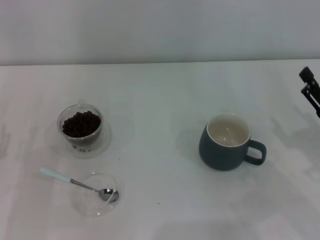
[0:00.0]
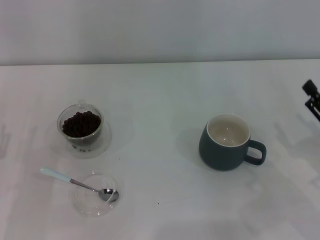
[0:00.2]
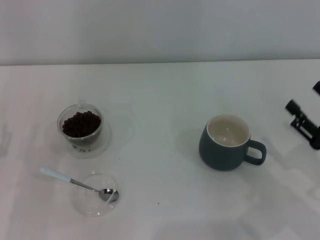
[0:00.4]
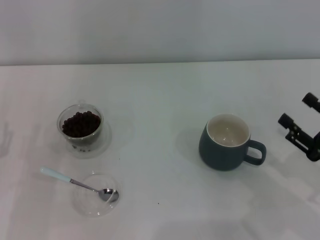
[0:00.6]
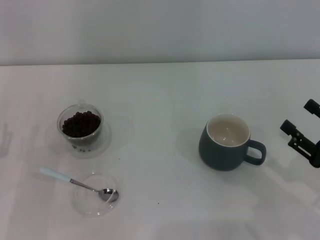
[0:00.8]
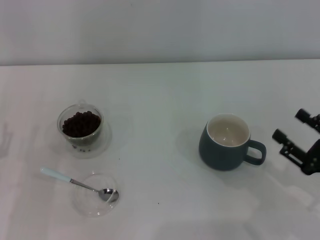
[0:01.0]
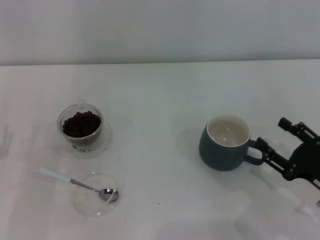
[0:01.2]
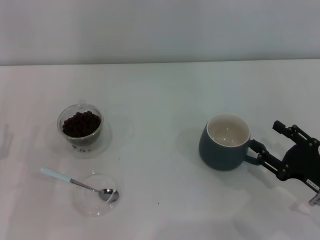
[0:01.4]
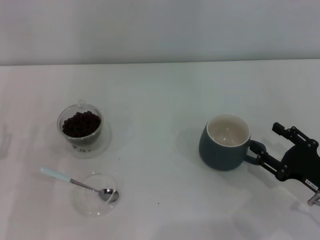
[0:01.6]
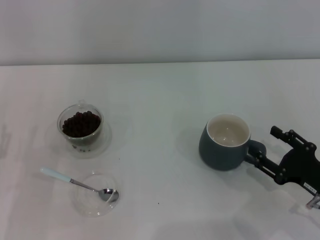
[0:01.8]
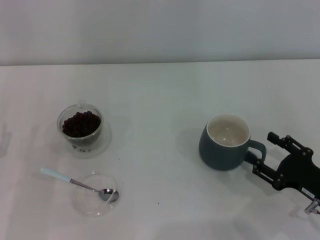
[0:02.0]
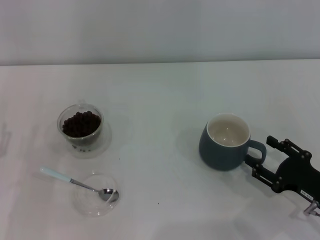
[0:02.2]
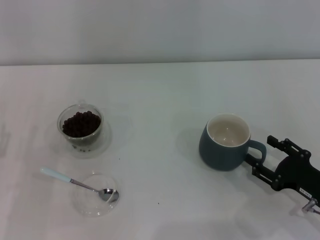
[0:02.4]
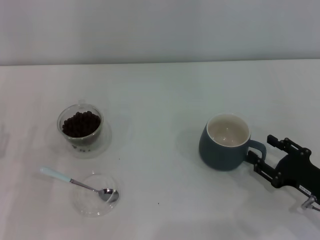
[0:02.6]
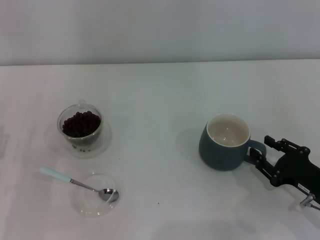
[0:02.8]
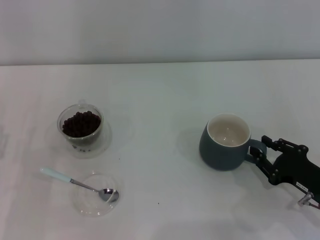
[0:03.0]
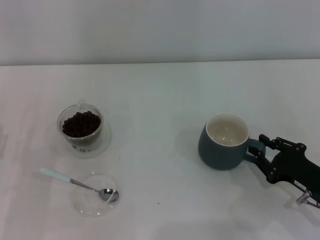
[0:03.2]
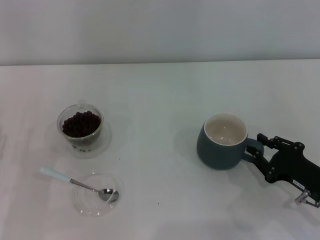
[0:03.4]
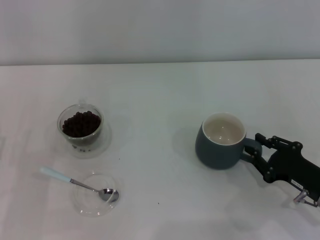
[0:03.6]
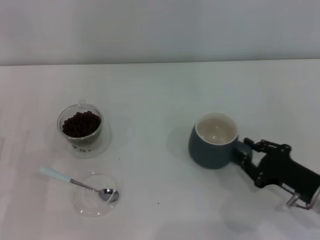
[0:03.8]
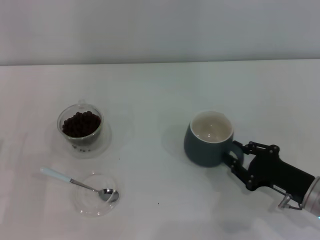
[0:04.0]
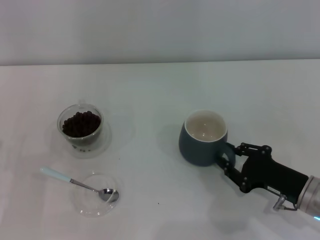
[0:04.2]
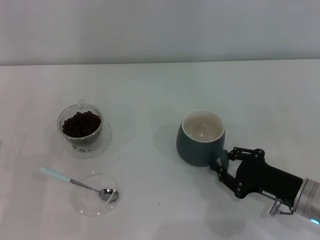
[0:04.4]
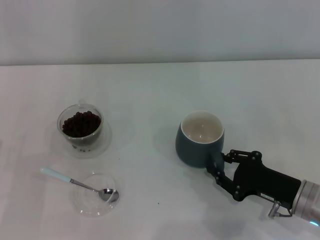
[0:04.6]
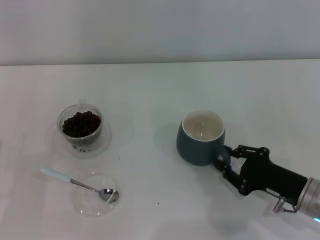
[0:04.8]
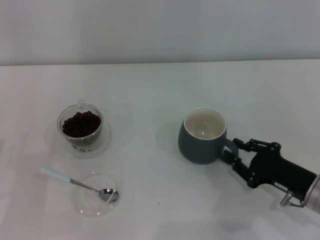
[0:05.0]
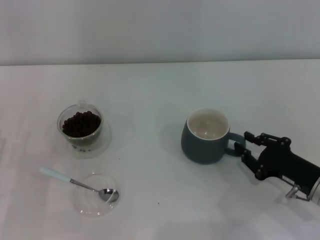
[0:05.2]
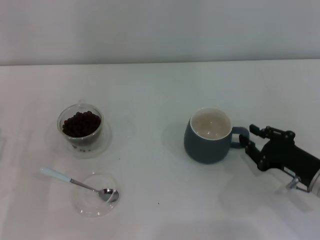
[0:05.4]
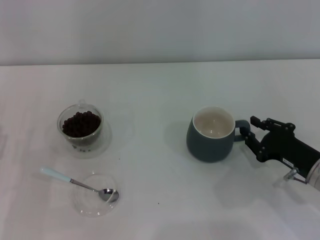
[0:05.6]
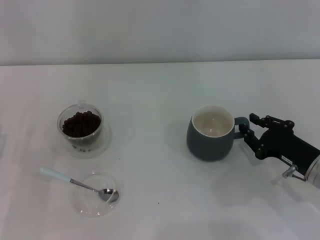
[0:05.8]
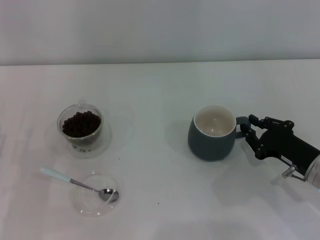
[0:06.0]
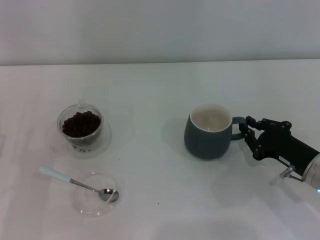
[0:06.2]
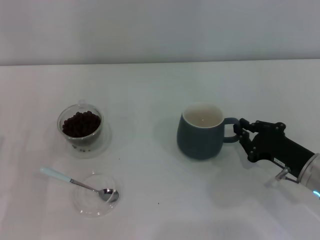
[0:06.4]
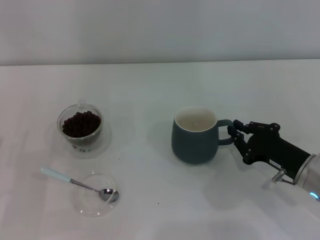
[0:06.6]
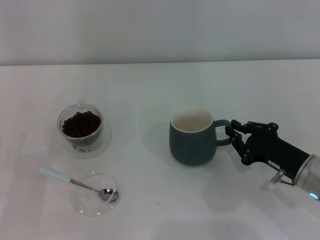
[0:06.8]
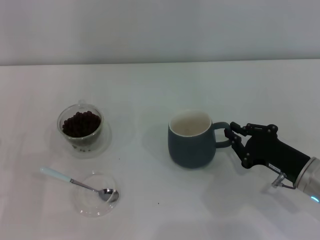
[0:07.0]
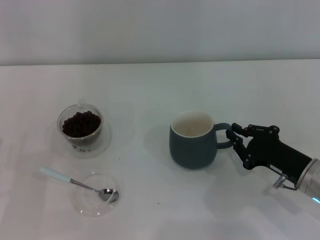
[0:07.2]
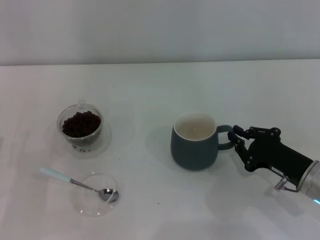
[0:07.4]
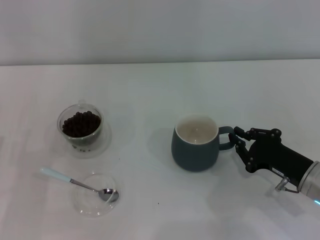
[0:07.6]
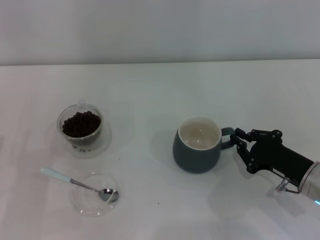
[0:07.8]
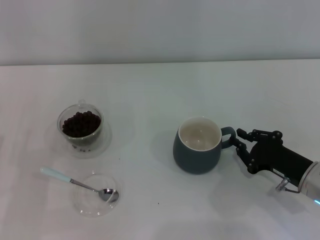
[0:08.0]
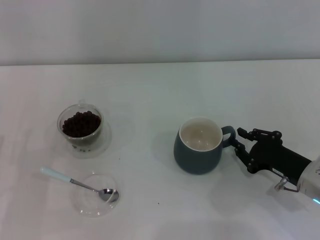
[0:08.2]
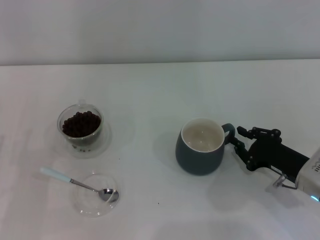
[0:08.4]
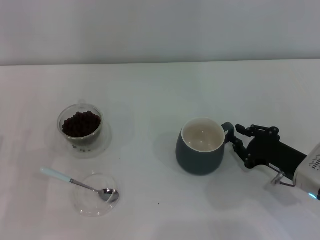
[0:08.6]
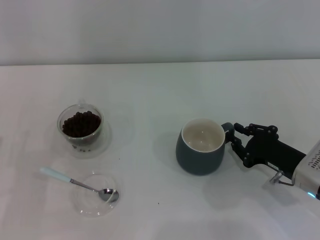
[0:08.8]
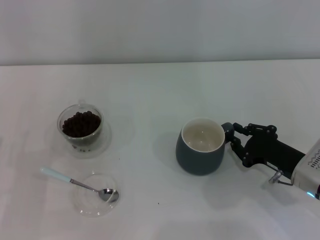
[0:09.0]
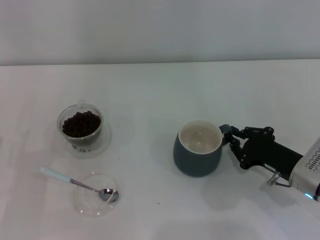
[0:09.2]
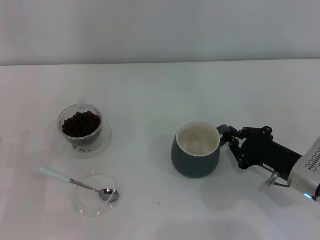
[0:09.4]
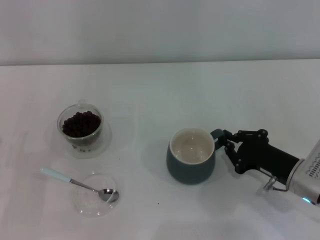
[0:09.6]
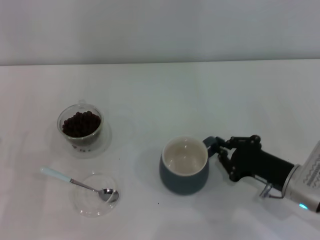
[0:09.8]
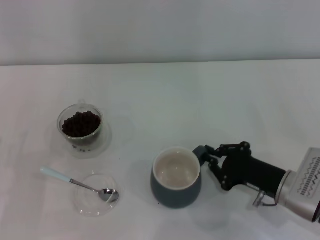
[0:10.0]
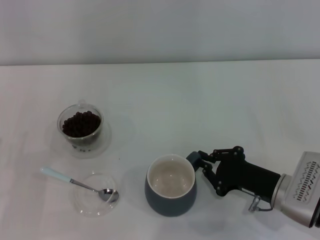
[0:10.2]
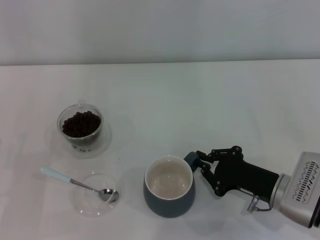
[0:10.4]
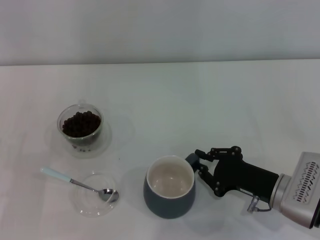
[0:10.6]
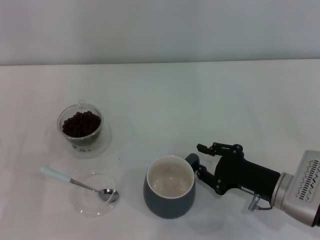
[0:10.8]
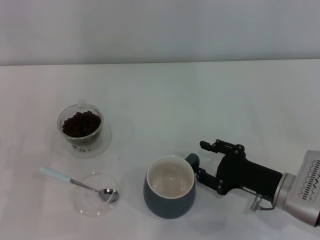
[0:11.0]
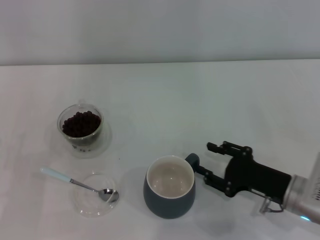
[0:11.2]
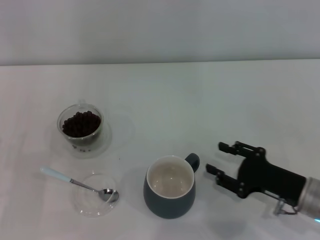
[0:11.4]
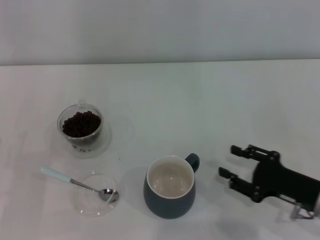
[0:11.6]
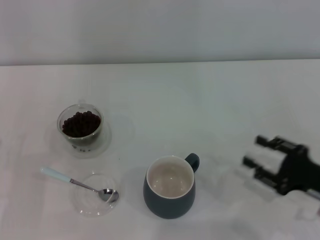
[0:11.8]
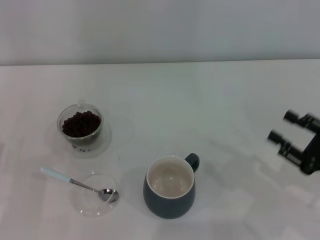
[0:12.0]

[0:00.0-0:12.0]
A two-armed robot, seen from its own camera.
Task of the whole recording: Use a blue spoon to take out the coffee beans from the glass and pour them into the gray cup.
Step, 0:00.0 to 0:11.4: Move the cup to the center of view with the left gripper.
0:00.0 to 0:01.6: The right gripper shifts by approximately 5 cm.
0:01.6 to 0:06.0: There are only small adjustments of the grippers.
0:06.0 to 0:09.0: The grippers move only a little.
0:09.0 to 0:10.4: The grippers stay close to where they were, moving slightly.
0:10.4 to 0:12.0: The right gripper shifts roughly 10 cm to the right, and opens up.

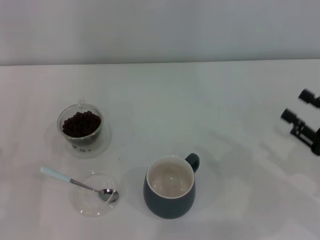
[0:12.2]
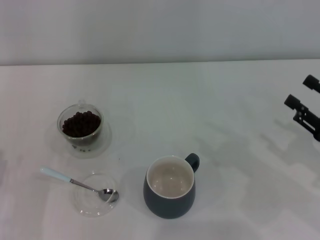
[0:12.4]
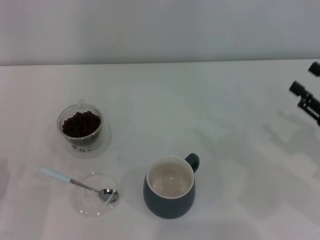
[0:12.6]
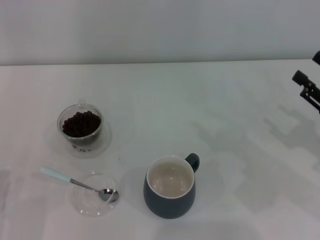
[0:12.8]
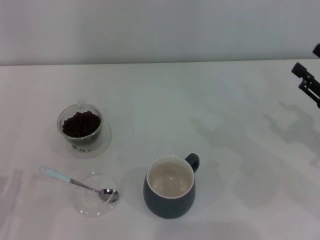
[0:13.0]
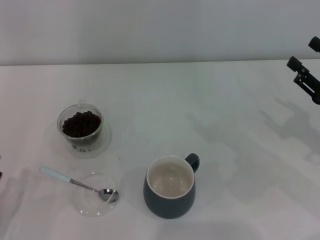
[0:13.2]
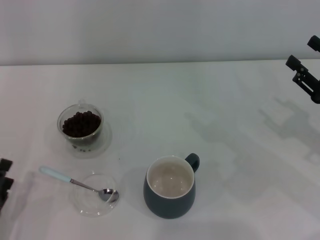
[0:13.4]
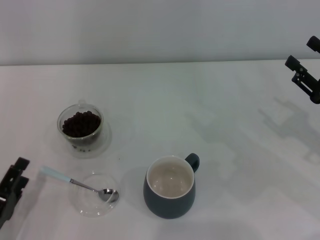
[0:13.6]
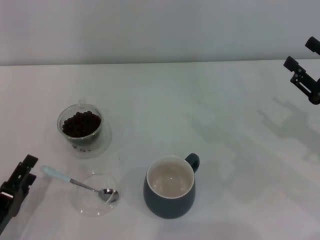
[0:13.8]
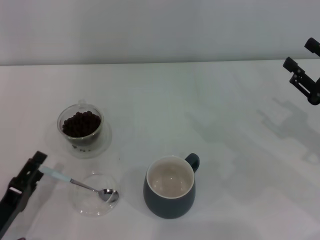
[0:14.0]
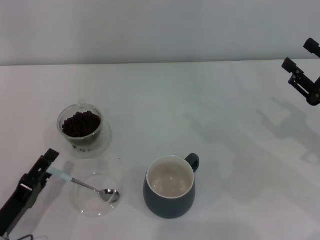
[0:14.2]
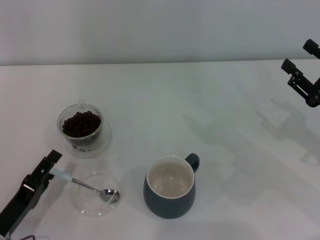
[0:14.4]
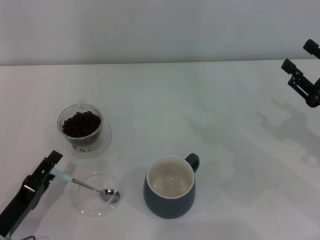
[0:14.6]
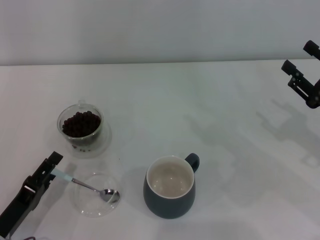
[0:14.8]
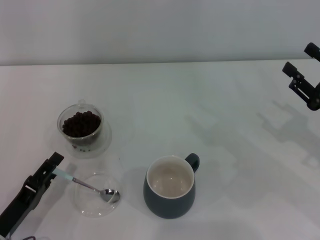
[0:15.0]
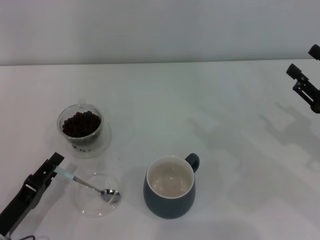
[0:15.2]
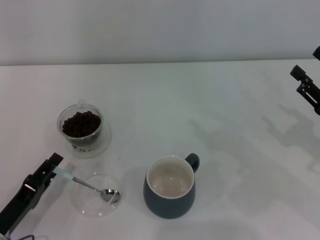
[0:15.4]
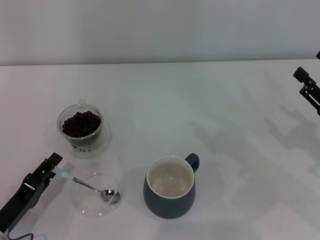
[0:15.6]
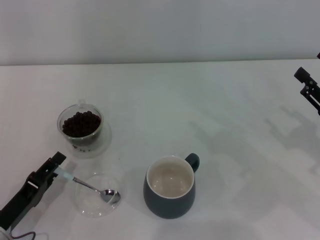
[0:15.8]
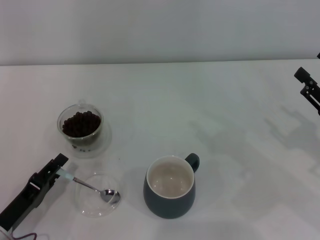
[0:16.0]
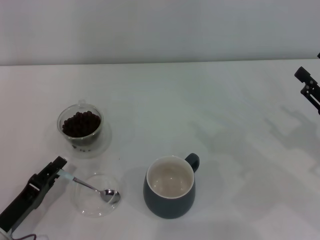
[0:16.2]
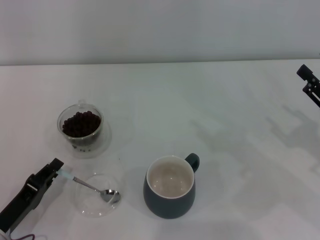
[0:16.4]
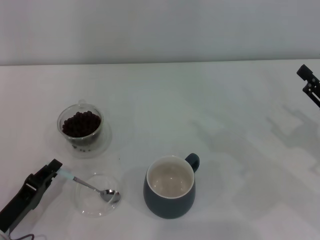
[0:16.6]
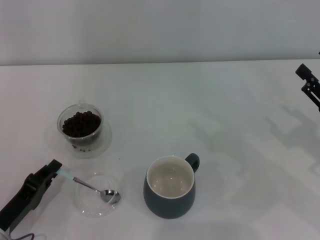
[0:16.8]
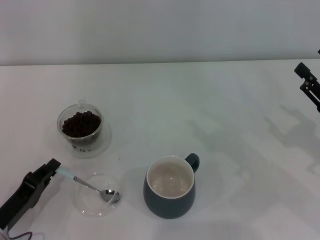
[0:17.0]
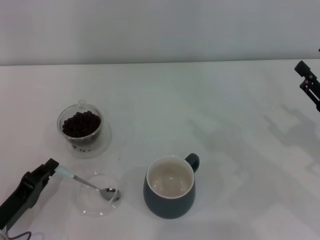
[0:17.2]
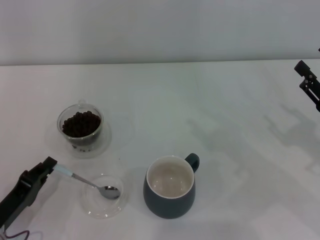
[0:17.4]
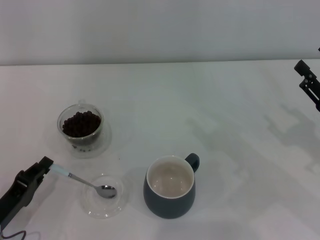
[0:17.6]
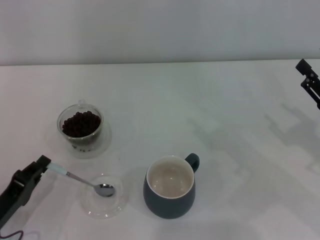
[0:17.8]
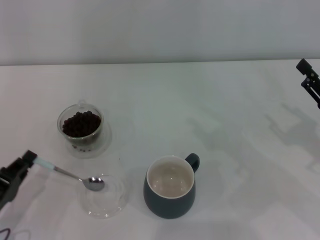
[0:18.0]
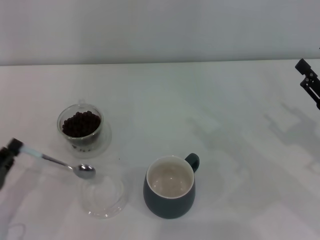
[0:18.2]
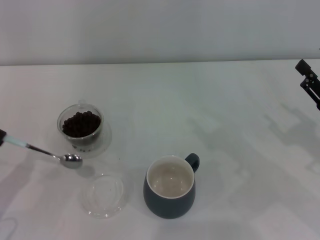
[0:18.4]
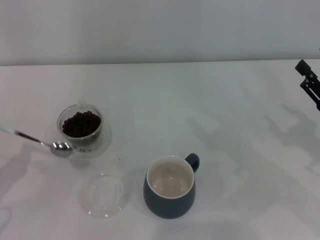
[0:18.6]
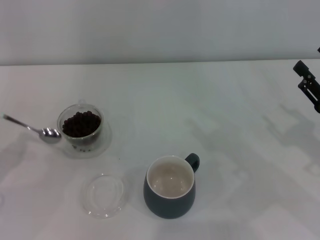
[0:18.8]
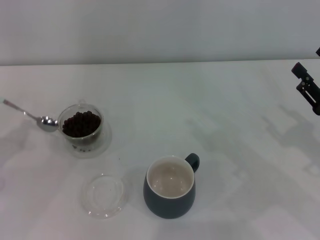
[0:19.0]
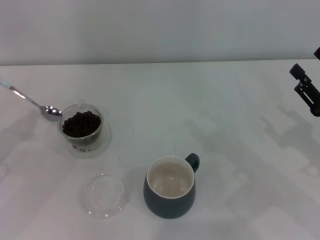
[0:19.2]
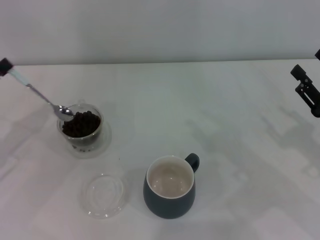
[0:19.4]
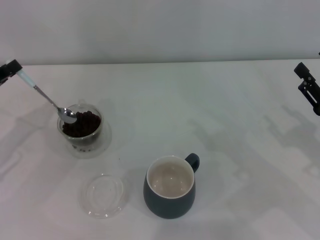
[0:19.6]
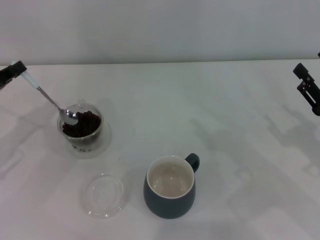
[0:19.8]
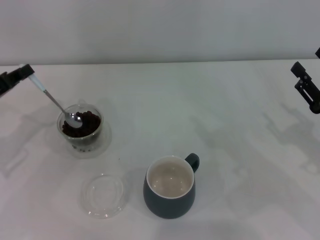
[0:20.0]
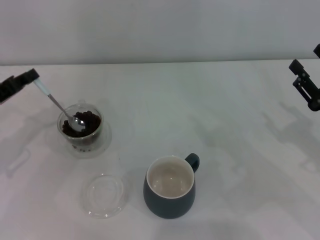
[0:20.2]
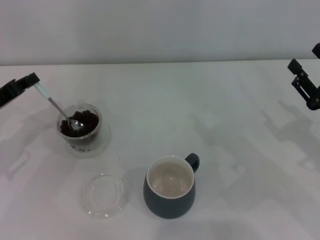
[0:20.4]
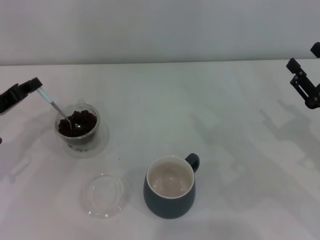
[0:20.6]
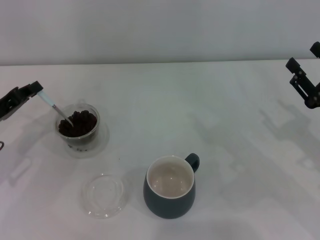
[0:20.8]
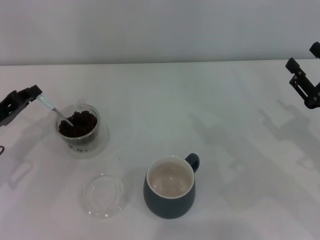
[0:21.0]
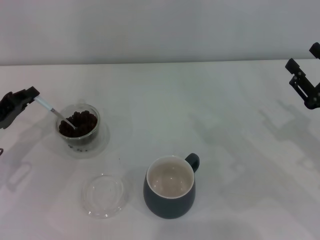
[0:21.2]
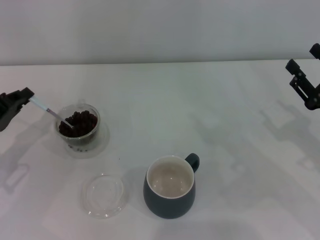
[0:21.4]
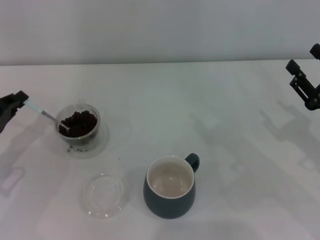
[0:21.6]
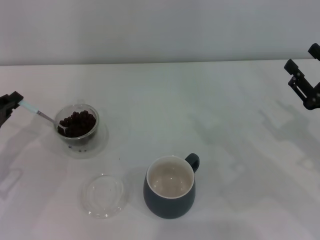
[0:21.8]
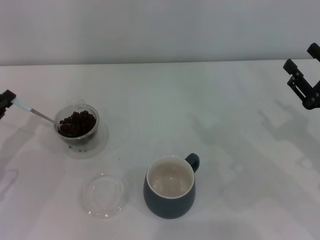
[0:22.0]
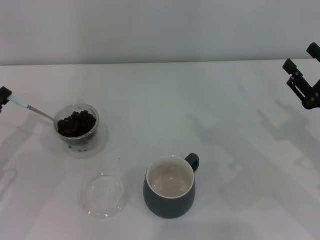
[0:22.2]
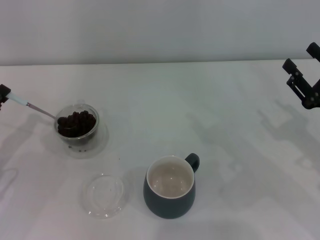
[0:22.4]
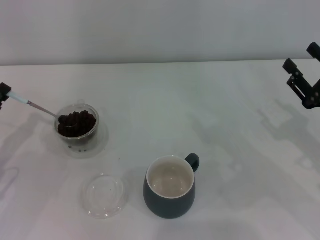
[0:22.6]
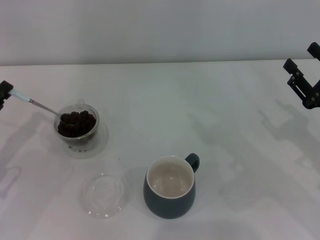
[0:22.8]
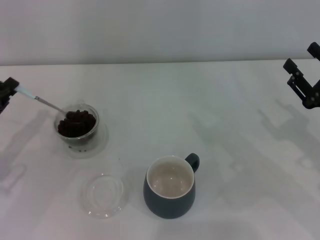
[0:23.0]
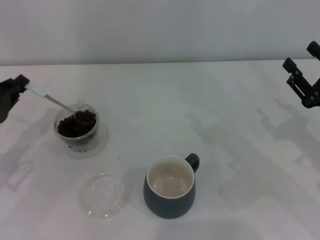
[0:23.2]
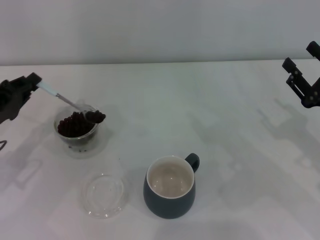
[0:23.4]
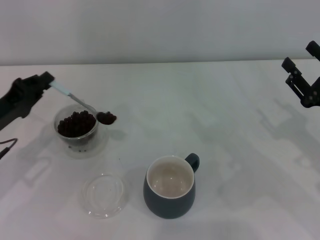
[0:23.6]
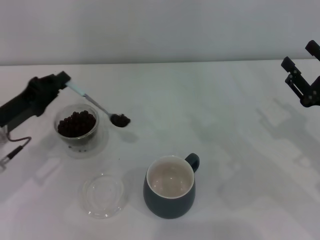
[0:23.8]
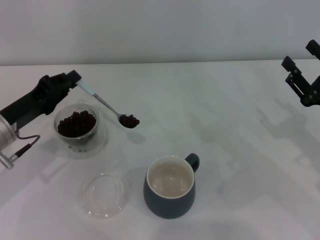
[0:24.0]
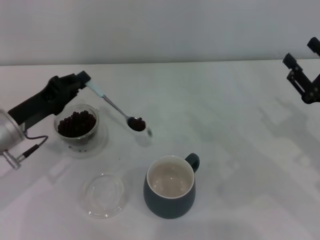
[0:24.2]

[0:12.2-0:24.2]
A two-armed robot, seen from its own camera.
Task of the whole recording: Use a blue spoon to take out the coffee beans from the glass and pour them into the gray cup.
Step, 0:12.2 to 0:18.2: Pick up the spoon with the right gripper.
0:12.2 to 0:13.8: The left gripper ends up about 5 cm from where it was. Meanwhile the right gripper moves forward, some 5 cm.
0:13.8 to 0:15.2: There are only small adjustments of the grippers.
0:15.2 to 0:16.6: The left gripper closes up.
0:16.6 to 0:18.2: The grippers make only small movements.
0:18.2 to 0:19.8: The left gripper shifts approximately 15 cm forward and upward.
0:19.8 to 0:21.2: The grippers stay close to where they were, moving slightly.
0:21.2 to 0:22.6: The grippers move only a little.
0:22.6 to 0:24.2: The left gripper travels to the right by about 10 cm.
